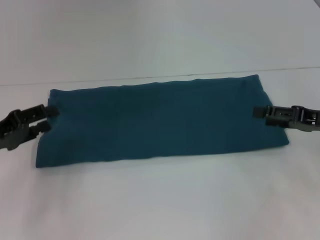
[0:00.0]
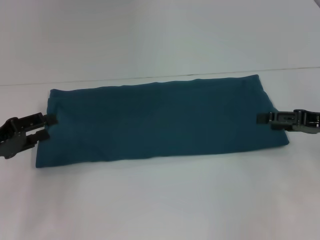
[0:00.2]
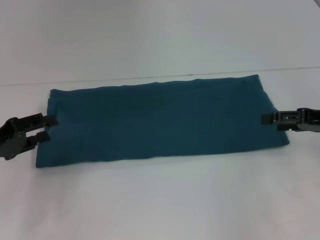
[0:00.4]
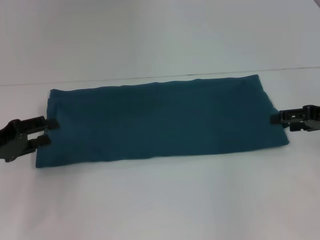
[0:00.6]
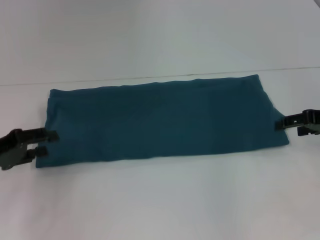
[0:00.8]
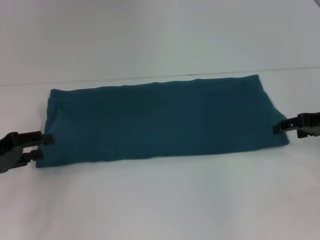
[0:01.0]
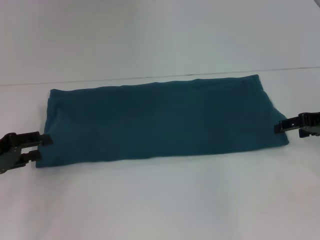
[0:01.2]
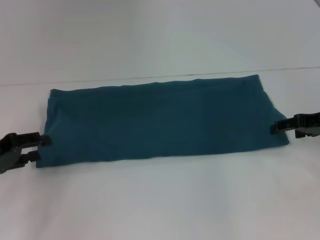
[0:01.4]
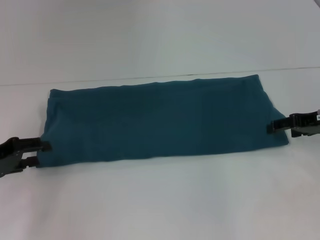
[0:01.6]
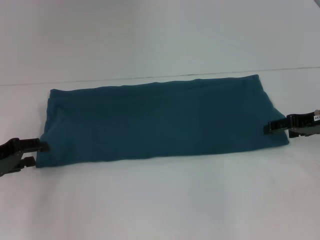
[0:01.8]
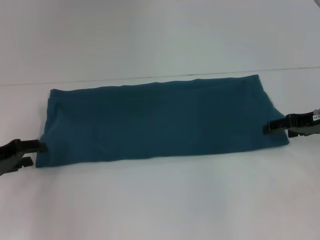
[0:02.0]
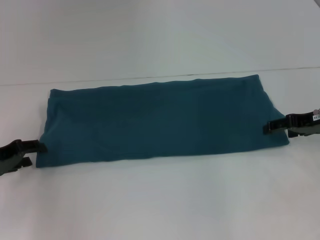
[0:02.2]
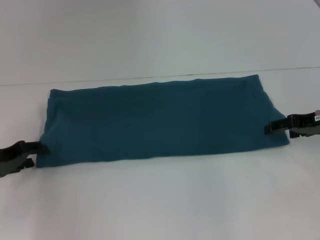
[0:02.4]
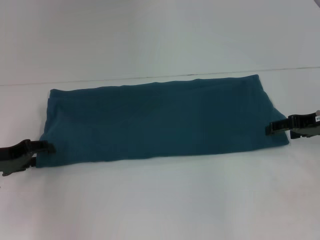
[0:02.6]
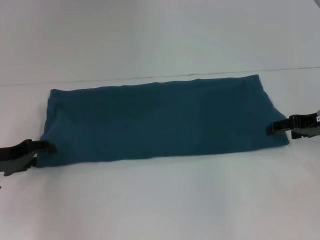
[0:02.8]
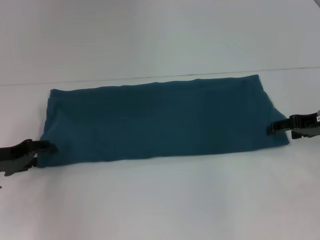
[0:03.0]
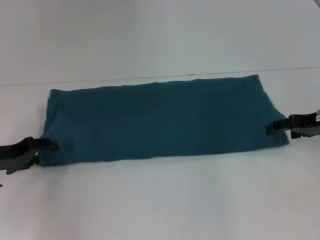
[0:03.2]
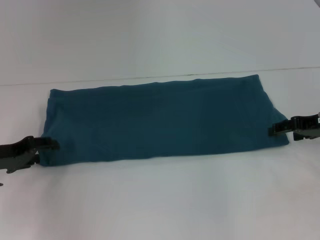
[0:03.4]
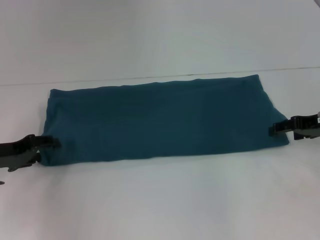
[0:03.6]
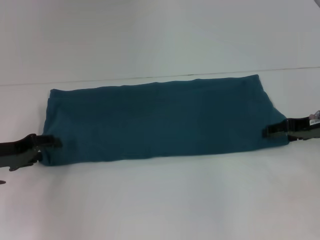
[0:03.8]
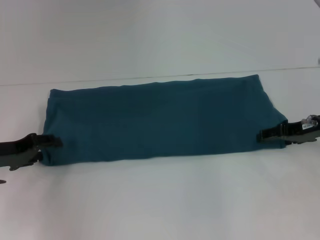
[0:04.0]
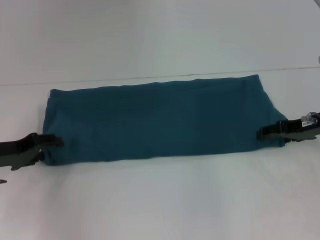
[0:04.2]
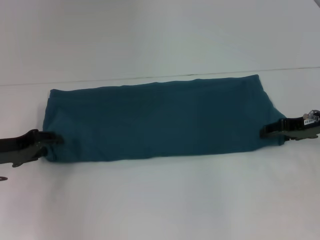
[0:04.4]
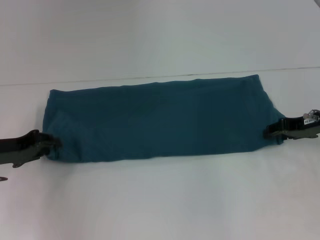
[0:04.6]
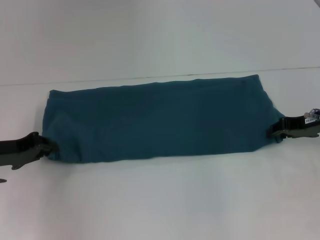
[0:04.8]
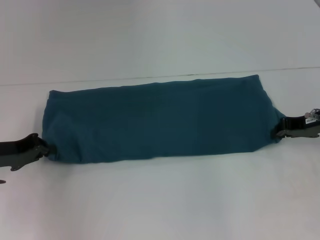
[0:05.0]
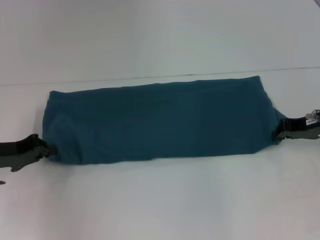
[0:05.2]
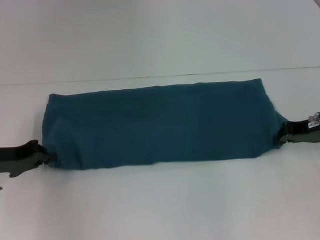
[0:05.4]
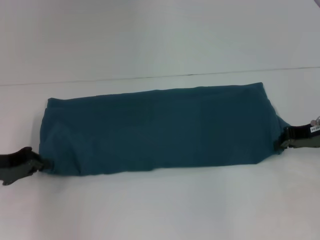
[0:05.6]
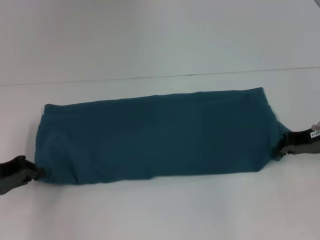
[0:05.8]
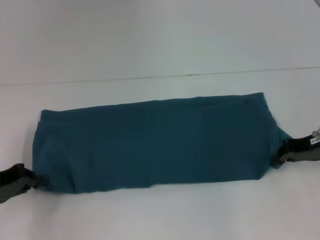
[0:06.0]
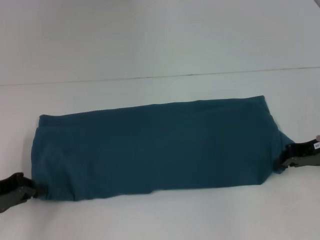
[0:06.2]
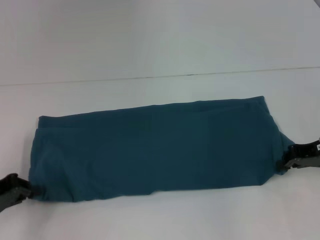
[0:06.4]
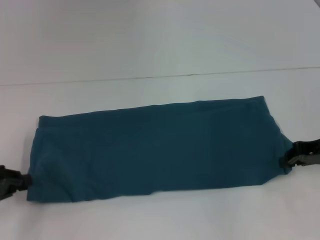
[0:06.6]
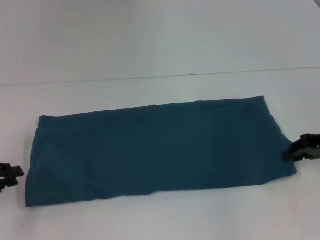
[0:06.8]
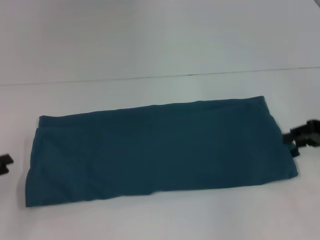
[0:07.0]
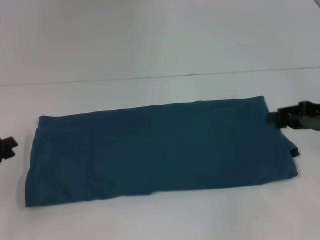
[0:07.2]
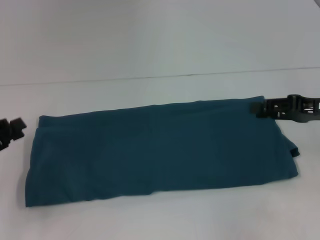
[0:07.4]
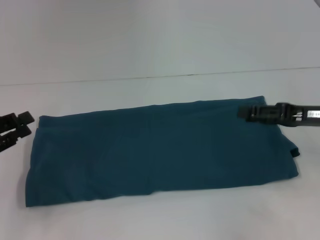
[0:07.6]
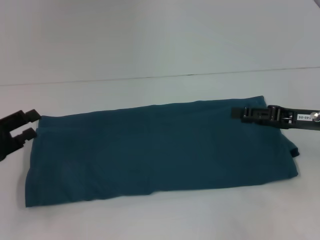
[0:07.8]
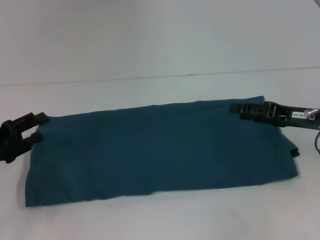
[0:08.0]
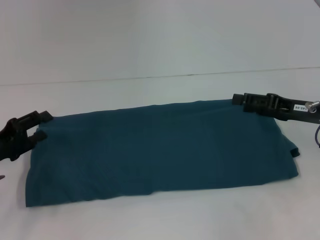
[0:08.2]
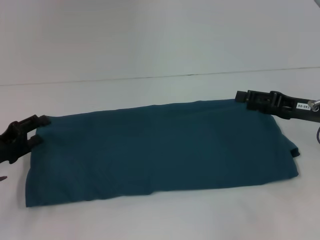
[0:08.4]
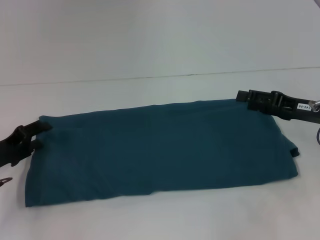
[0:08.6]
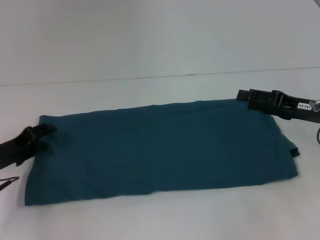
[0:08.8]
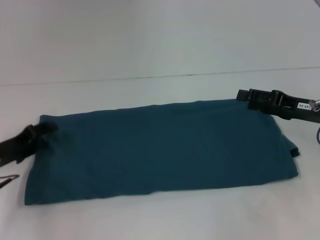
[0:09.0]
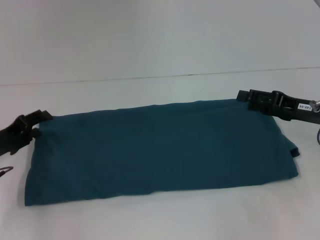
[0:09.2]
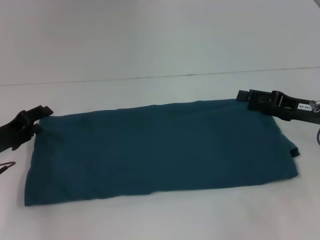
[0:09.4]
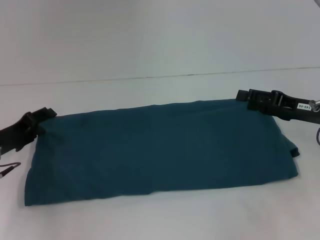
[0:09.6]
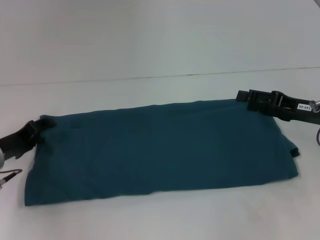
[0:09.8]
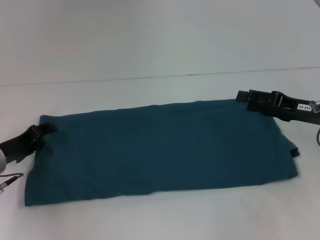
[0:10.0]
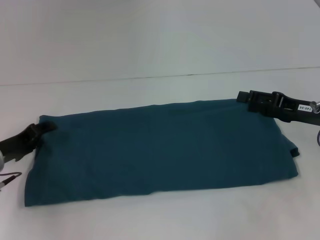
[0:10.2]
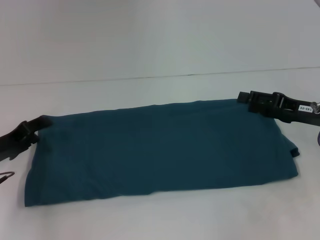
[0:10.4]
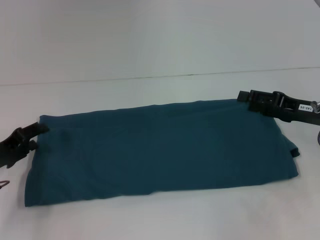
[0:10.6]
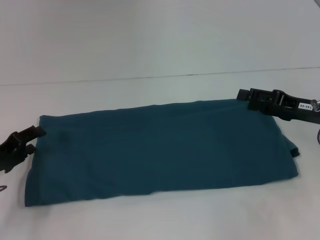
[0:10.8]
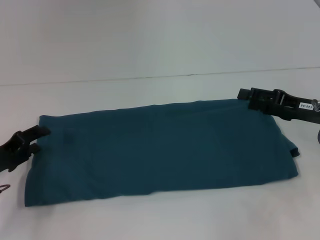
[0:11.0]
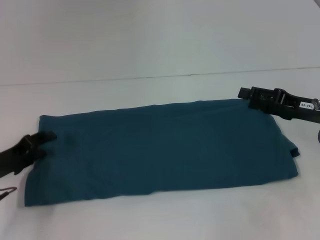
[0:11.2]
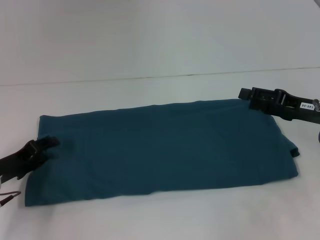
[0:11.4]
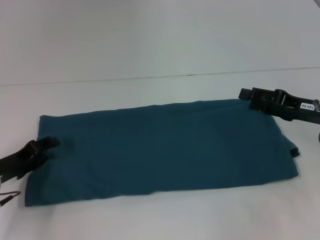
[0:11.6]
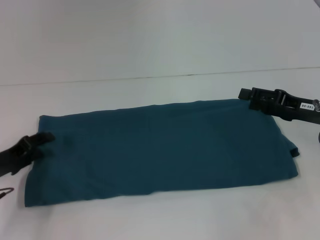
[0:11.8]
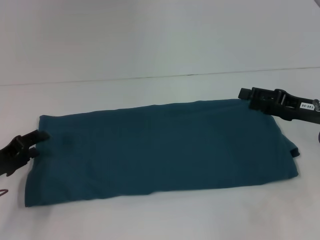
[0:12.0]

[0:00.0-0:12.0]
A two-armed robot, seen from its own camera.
Step, 0:00.0 to 0:06.8: Pull the clothes with your left hand.
Step, 0:00.0 to 0:06.8: Pull the clothes with your right hand.
0:01.6 to 0:04.4: The grippers stay close to where they were, moving slightly.
0:04.4 to 0:06.0: The left gripper moves backward, some 5 cm, and closes, while the right gripper closes up.
0:06.0 to 0:07.6: The right gripper opens.
0:07.6 to 0:09.0: The left gripper goes about 10 cm downward and forward, and opens up.
0:09.0 to 0:12.0: The grippers stay close to where they were, moving slightly.

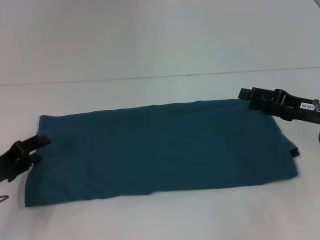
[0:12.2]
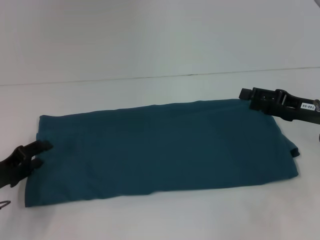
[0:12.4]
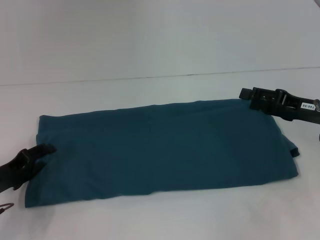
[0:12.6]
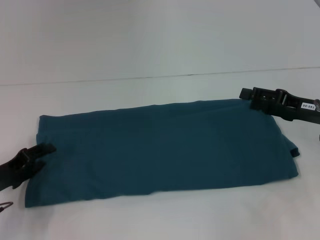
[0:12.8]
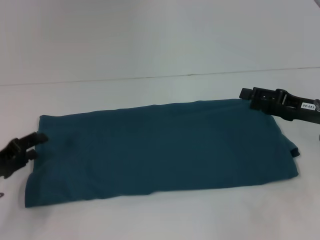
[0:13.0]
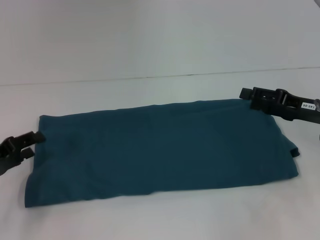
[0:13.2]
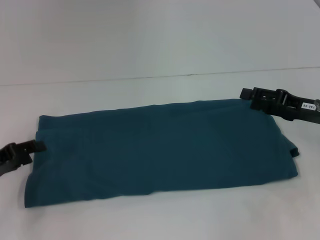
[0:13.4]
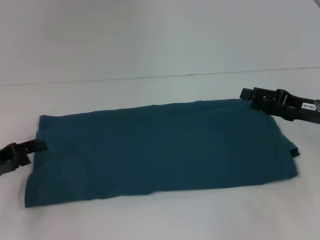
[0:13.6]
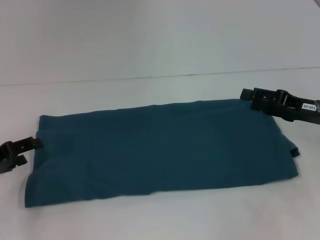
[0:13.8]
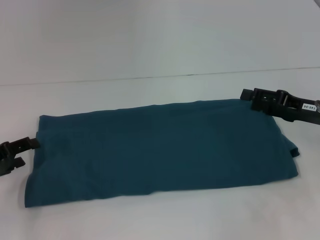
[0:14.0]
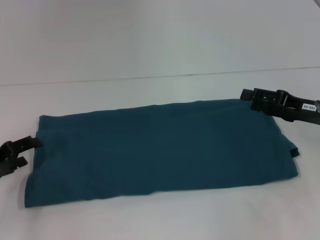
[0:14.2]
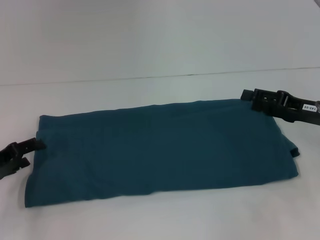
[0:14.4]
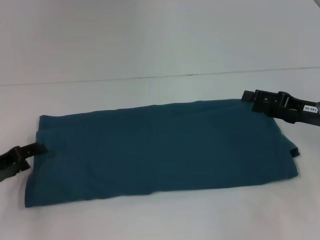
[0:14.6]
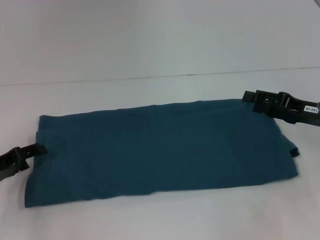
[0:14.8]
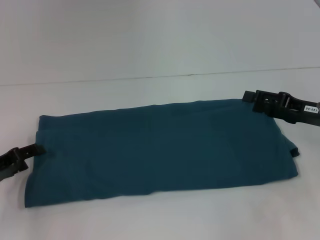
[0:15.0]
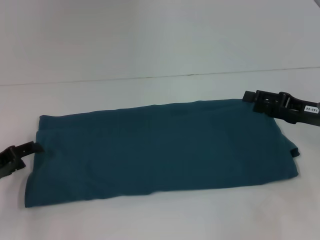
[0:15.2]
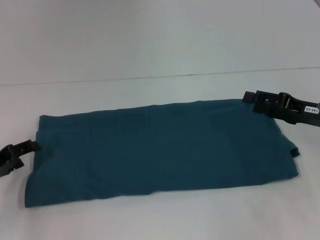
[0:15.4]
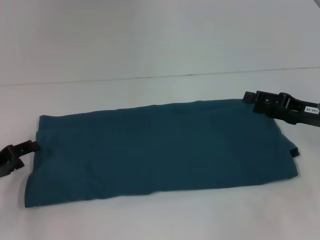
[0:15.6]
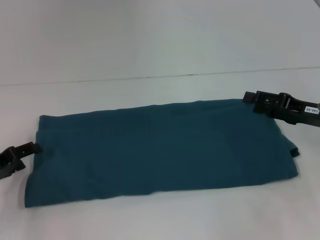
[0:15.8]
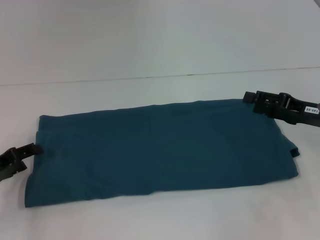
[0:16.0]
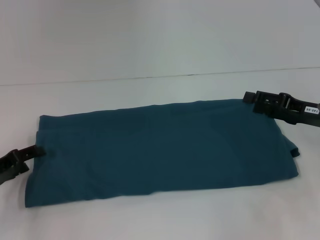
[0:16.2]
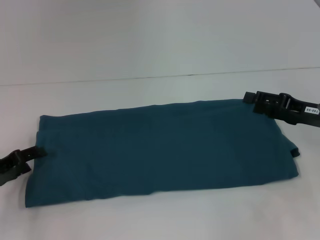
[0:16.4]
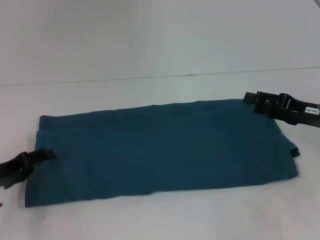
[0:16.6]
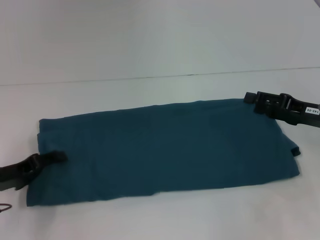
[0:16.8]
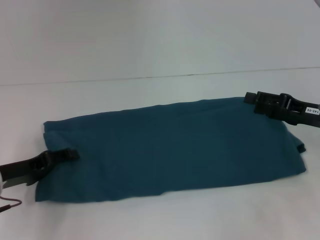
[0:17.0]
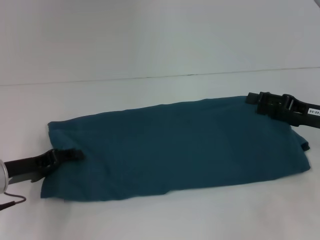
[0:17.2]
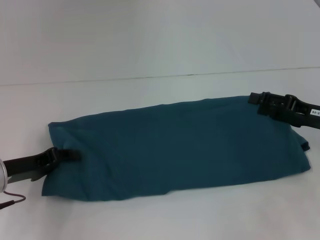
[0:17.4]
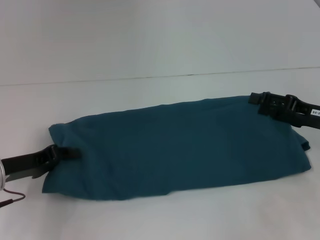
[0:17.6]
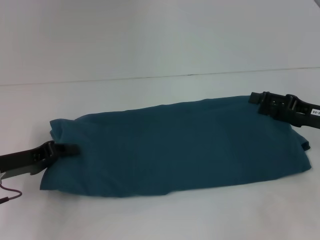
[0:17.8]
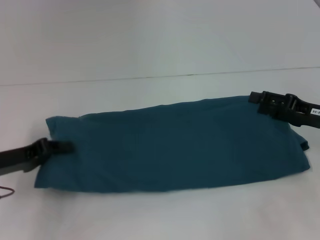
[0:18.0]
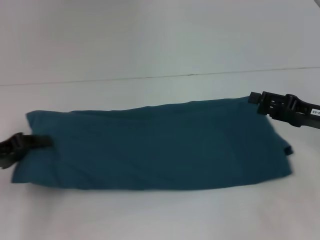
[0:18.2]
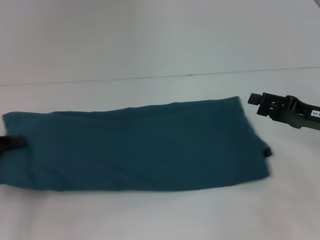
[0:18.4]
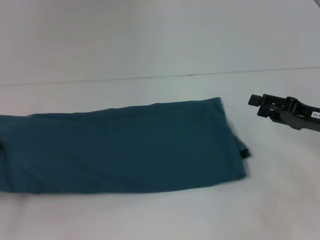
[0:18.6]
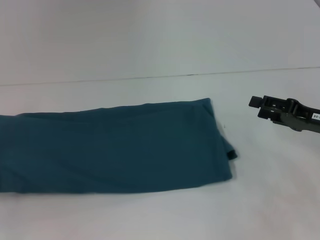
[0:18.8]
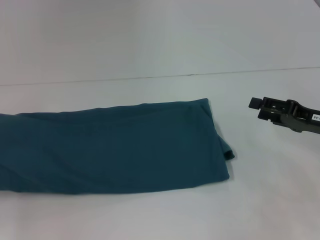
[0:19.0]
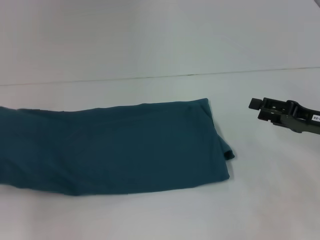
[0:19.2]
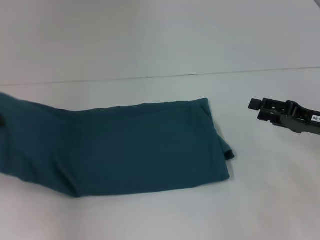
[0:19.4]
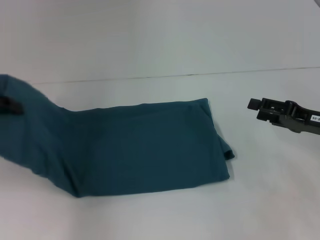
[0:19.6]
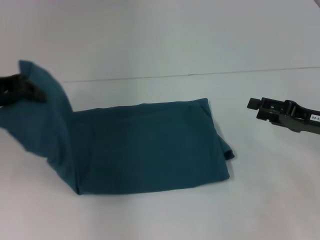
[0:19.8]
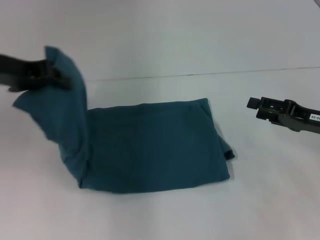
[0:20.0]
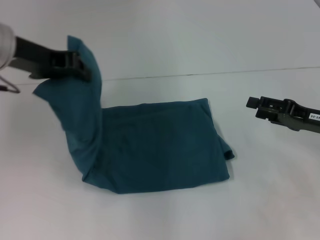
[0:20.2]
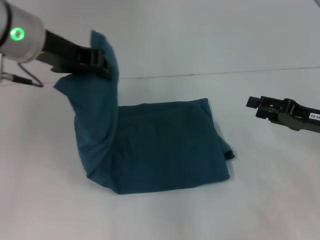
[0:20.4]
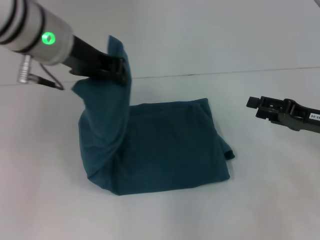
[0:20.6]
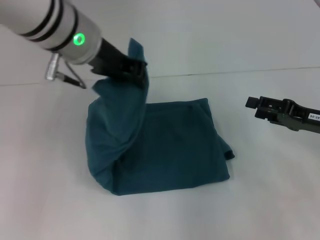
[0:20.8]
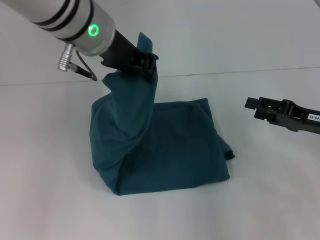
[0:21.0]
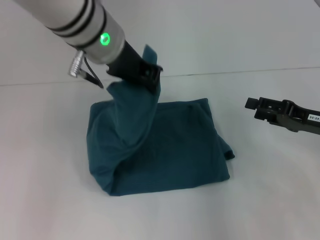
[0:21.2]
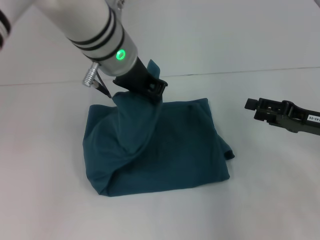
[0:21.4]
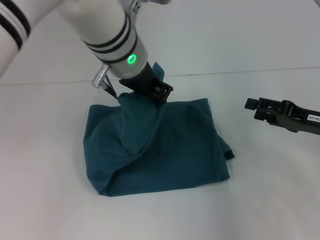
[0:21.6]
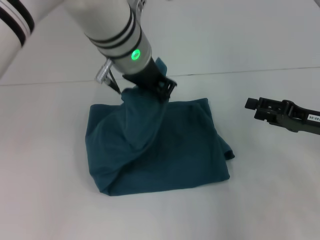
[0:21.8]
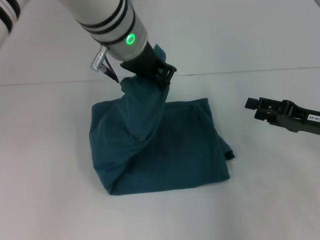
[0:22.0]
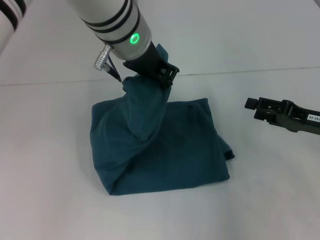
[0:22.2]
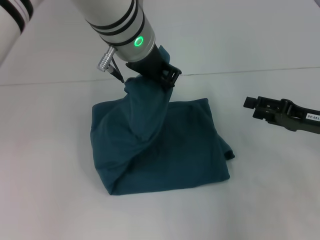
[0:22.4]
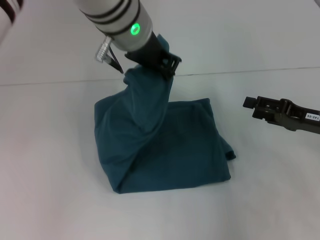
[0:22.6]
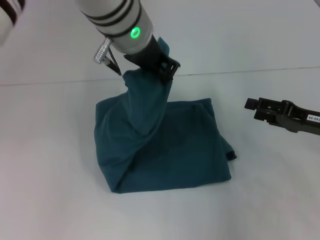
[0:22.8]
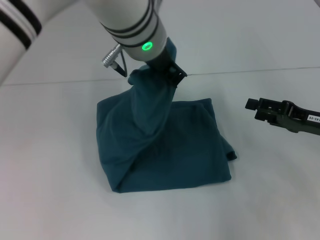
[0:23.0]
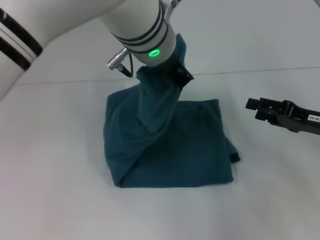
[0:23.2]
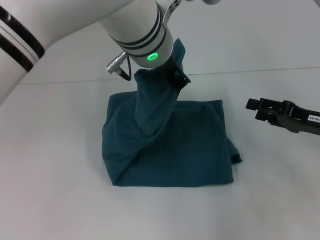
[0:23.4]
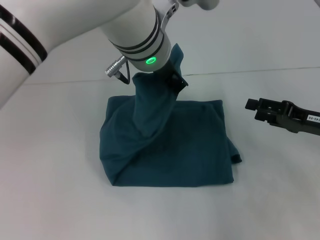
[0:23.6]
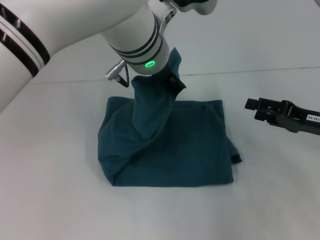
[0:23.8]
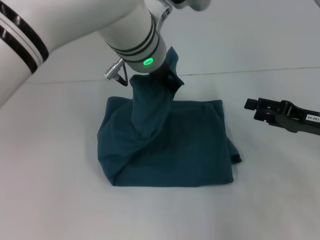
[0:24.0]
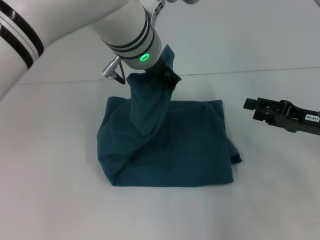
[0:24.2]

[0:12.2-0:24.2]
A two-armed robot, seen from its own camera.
0:12.2 to 0:15.2: There are only small adjustments of the grippers.
0:15.2 to 0:16.6: The two grippers keep their place.
0:16.6 to 0:18.2: The left gripper closes.
0:18.2 to 0:19.8: The left gripper travels upward by approximately 15 cm.
0:19.8 to 0:21.2: The left gripper goes roughly 20 cm to the right.
0:21.2 to 0:22.6: There are only small adjustments of the grippers.
